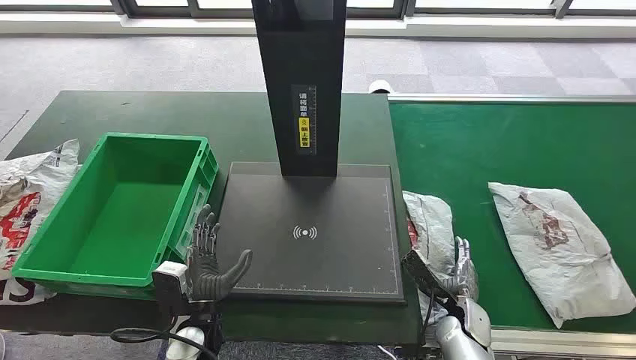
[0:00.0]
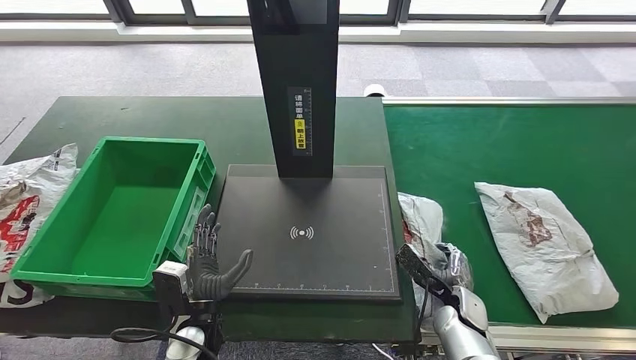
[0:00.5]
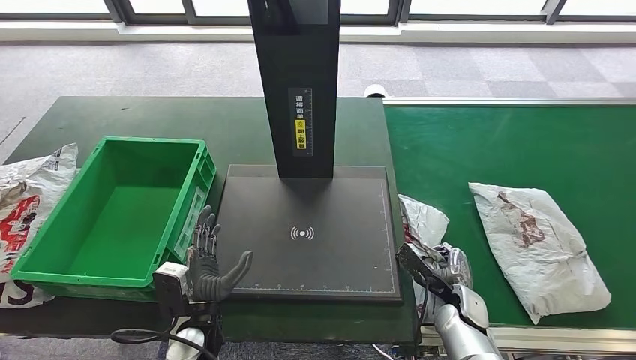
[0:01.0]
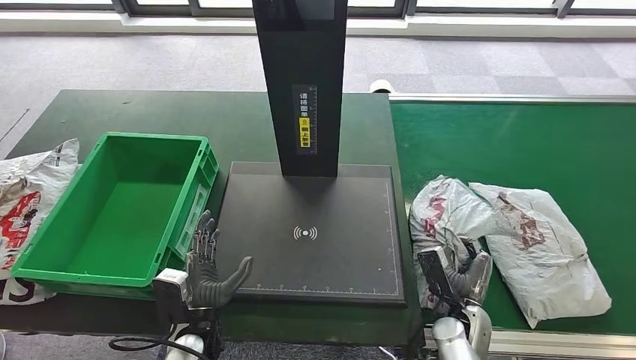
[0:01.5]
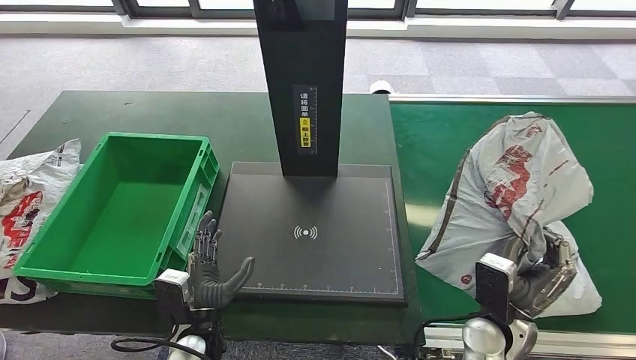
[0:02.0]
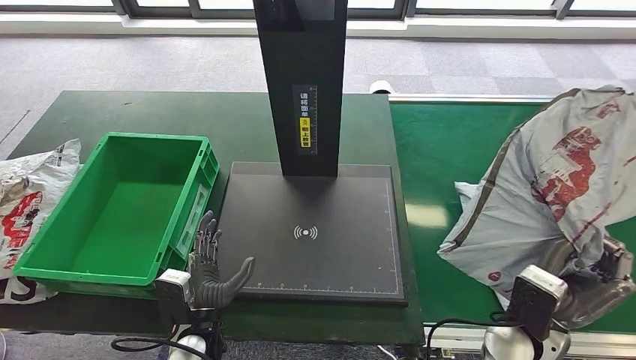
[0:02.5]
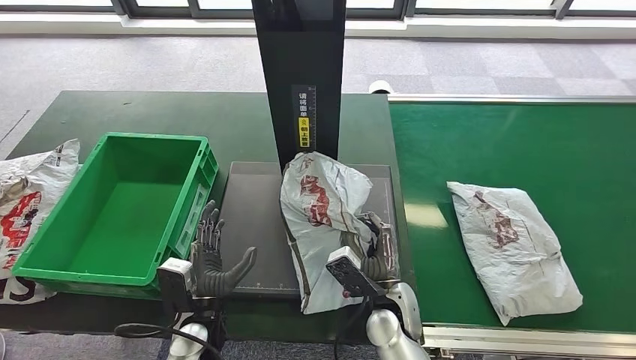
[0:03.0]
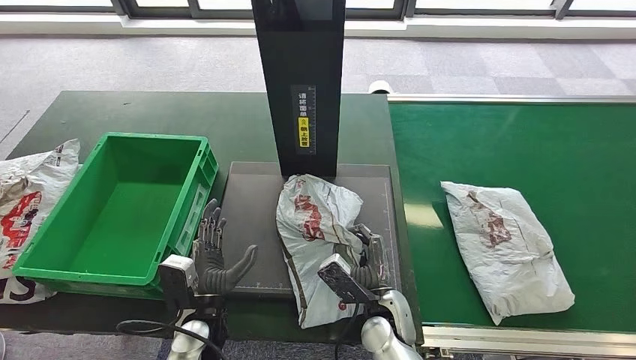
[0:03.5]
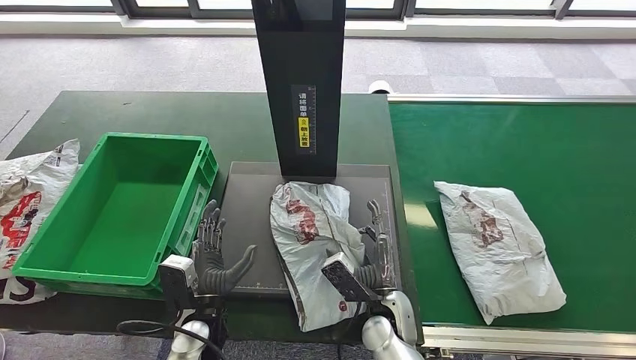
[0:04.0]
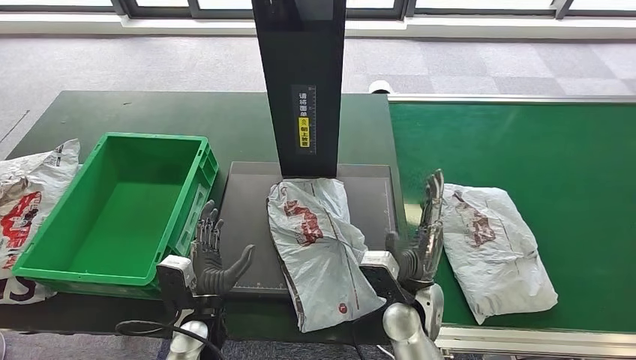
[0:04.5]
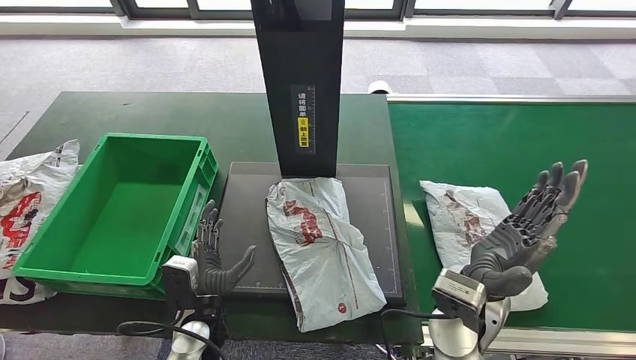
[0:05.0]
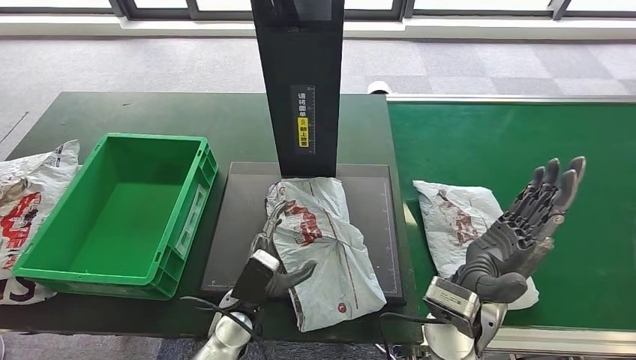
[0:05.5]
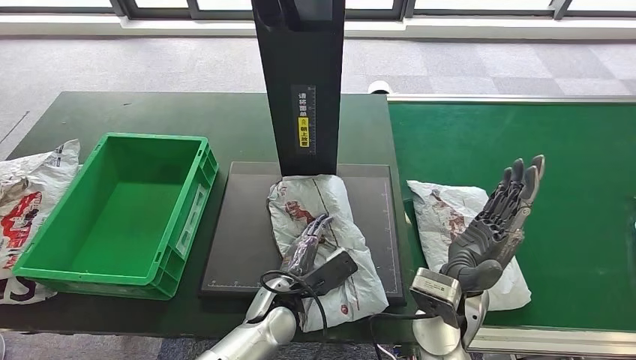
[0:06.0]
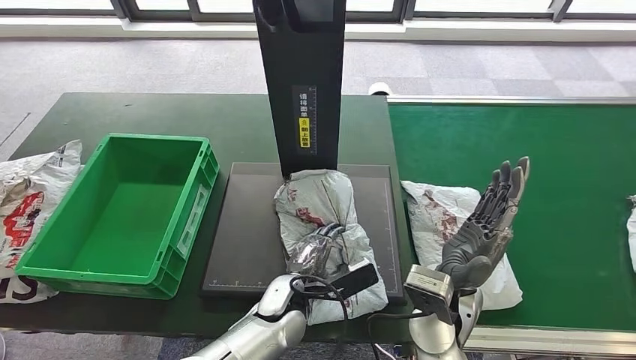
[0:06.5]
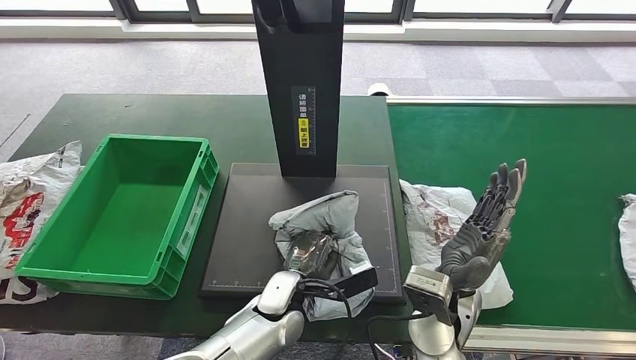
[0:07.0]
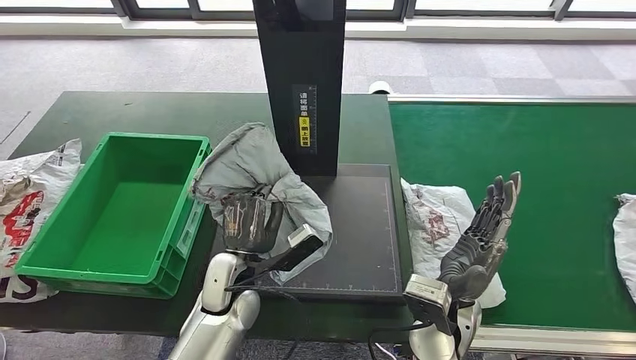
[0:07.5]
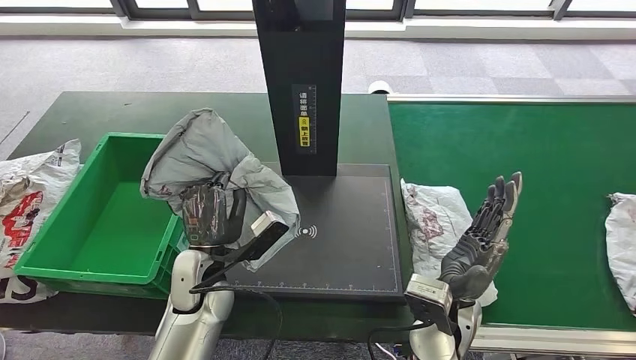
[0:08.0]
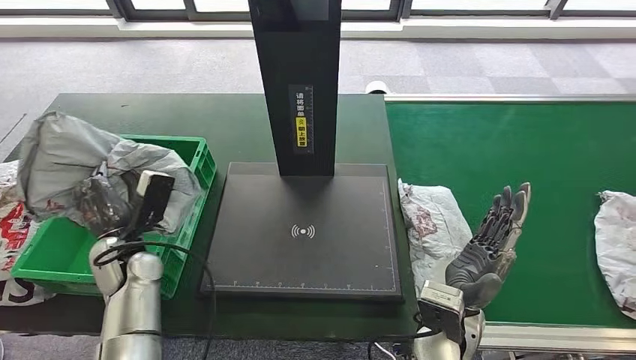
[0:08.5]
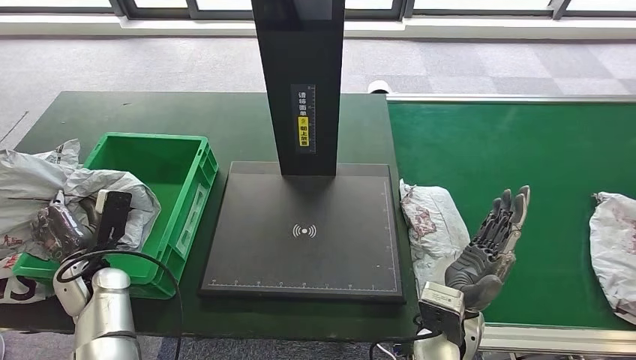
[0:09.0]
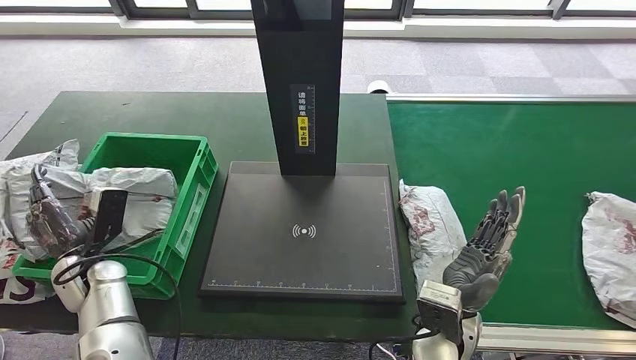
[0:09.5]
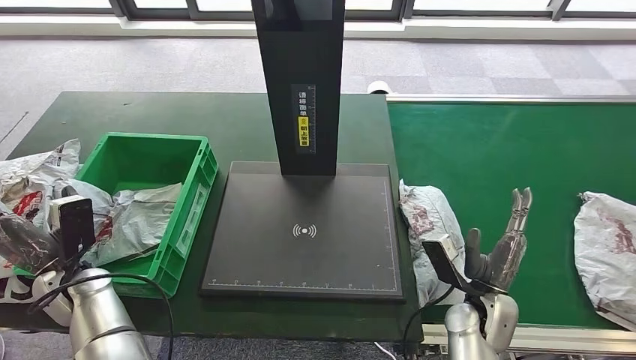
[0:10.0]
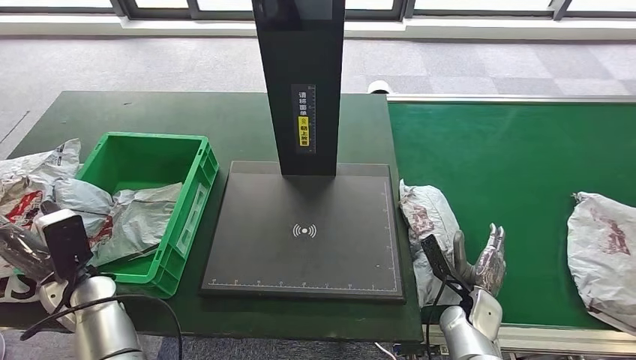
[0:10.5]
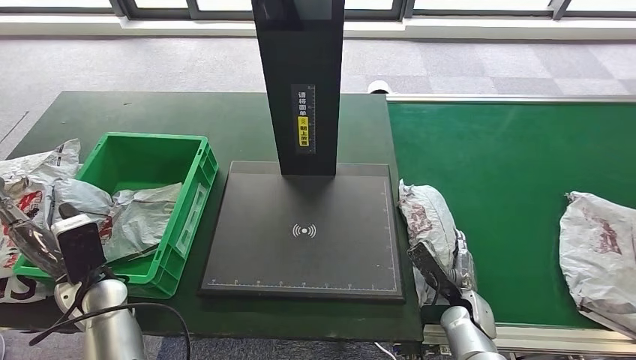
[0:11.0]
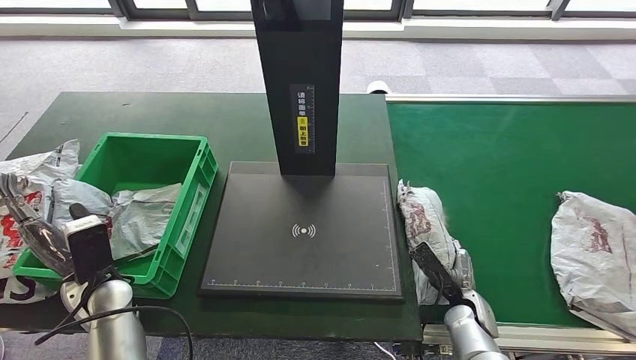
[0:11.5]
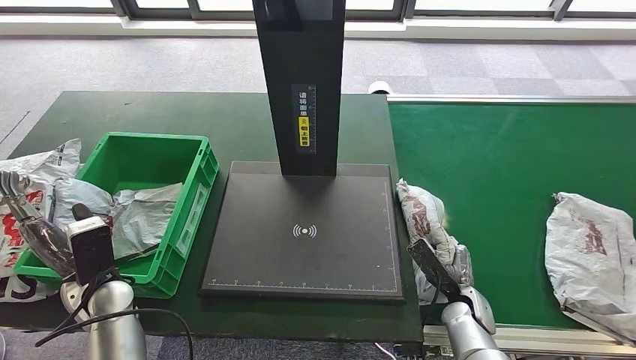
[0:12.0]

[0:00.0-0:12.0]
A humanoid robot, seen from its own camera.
Step, 0:00.0 to 0:01.5: Take the parcel off the conveyor belt.
Step, 0:02.5 to 0:05.0: Place the parcel onto the inbound machine.
Step, 0:05.5 to 0:08.5: Pick up the parcel from the inbound machine.
Step, 0:09.0 to 0:11.0: Put the parcel inside the courier box.
0:04.0 to 0:06.0: The left hand goes roughly 10 cm to the right; the right hand moves upward and to the right, approximately 15 cm.
0:10.0 to 0:12.0: The right hand moves downward, approximately 10 cm; the left hand shifts some 5 cm to the right.

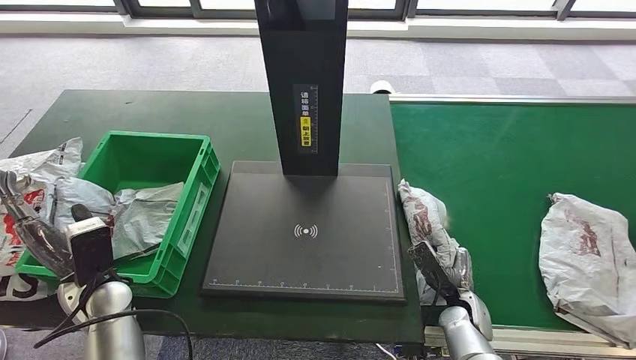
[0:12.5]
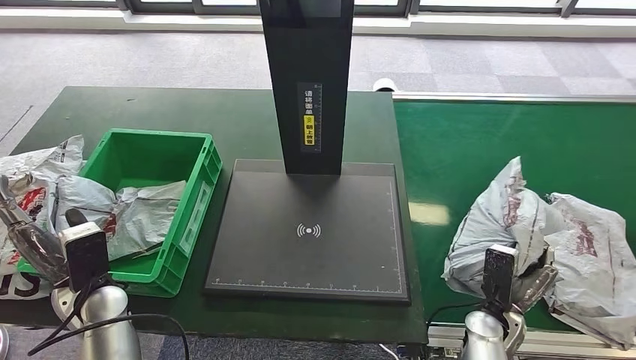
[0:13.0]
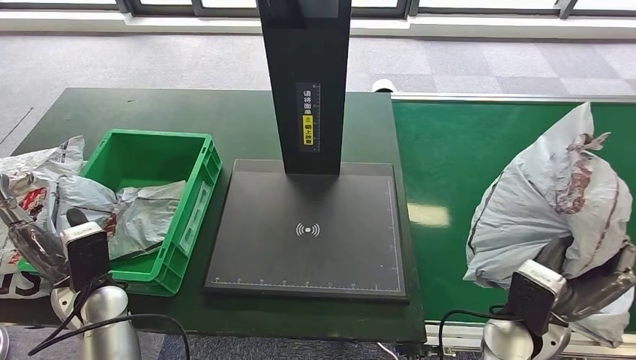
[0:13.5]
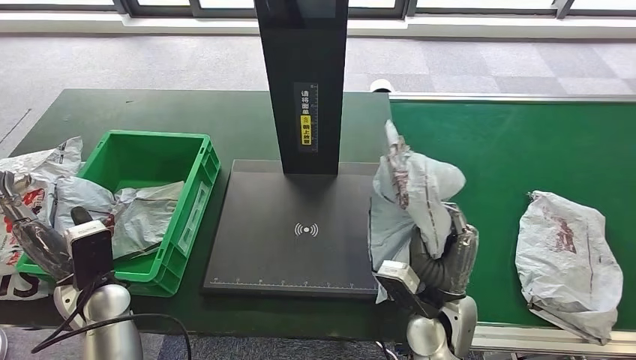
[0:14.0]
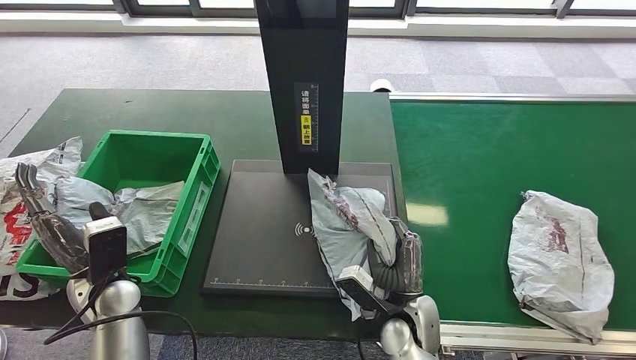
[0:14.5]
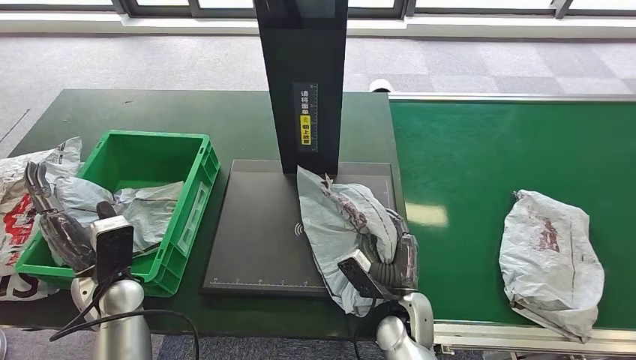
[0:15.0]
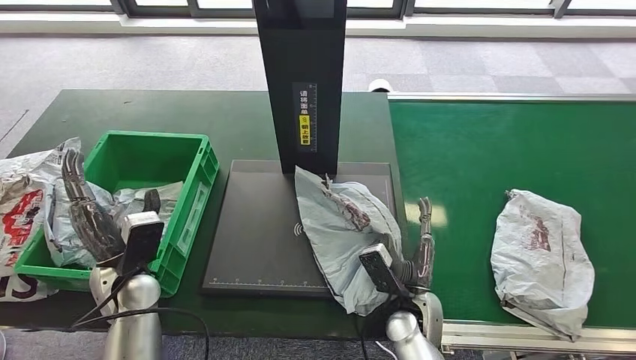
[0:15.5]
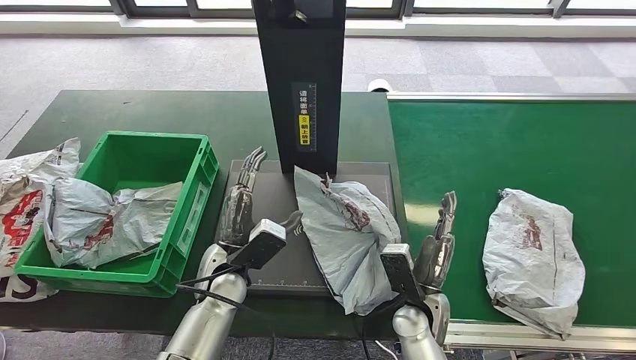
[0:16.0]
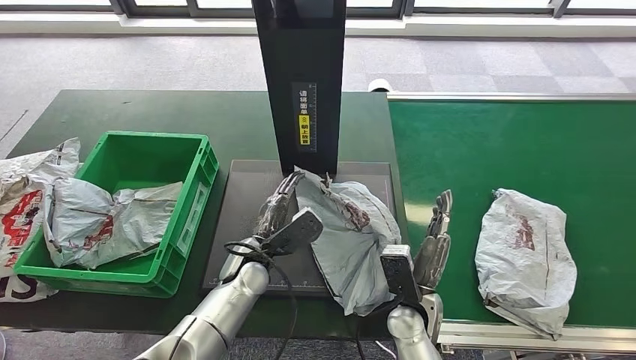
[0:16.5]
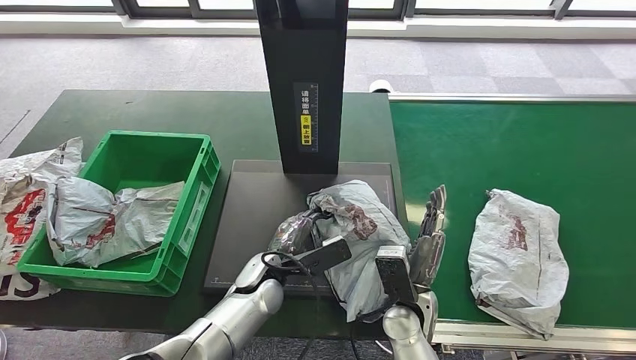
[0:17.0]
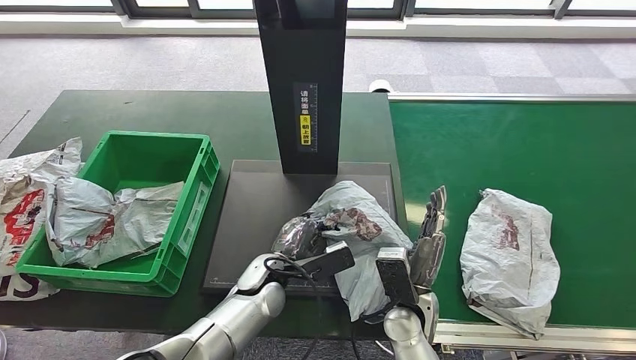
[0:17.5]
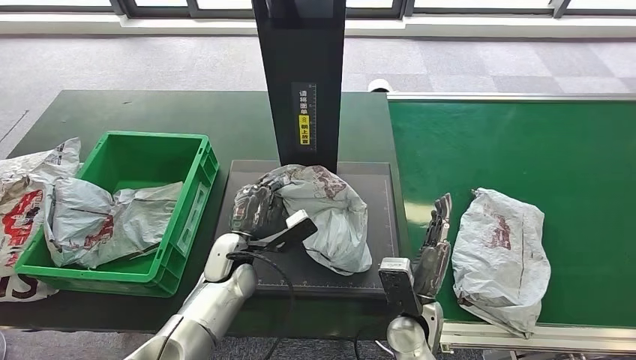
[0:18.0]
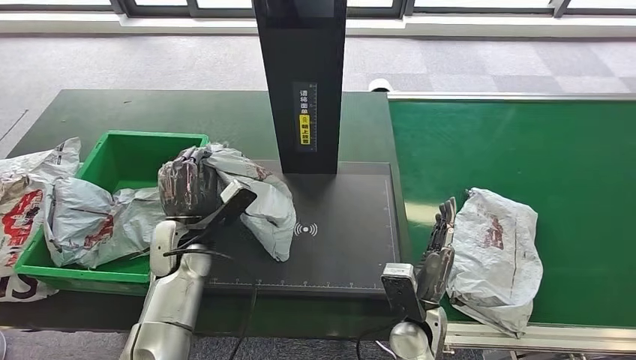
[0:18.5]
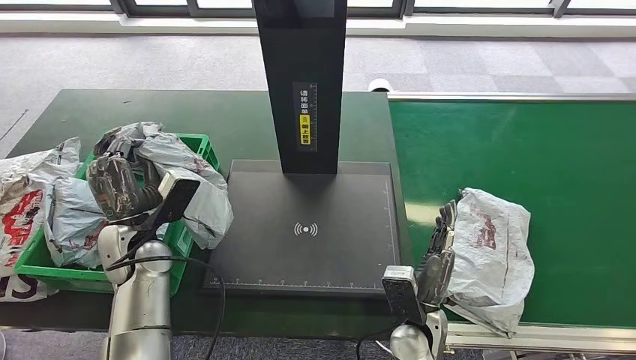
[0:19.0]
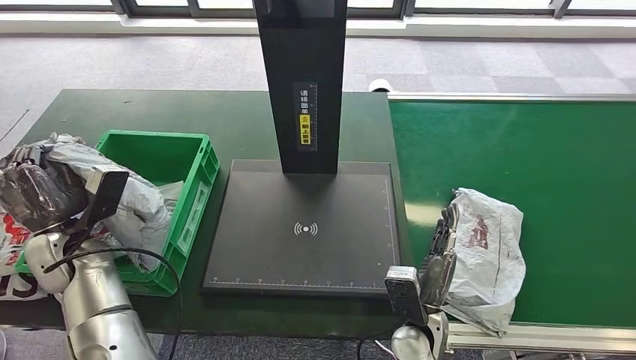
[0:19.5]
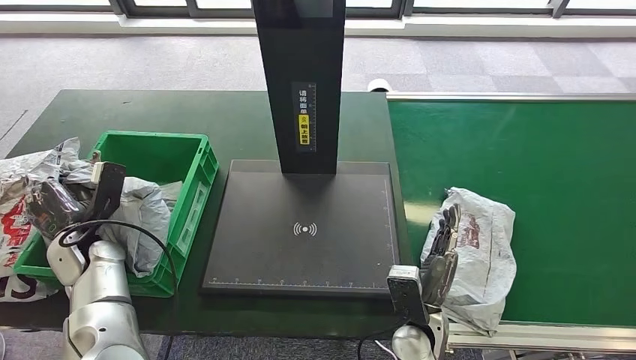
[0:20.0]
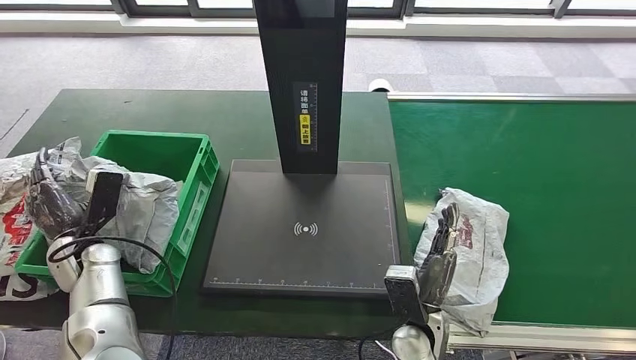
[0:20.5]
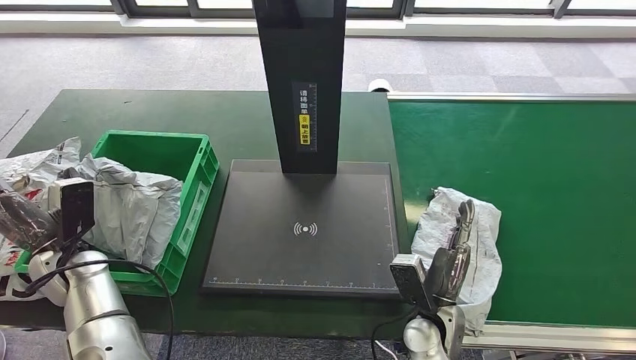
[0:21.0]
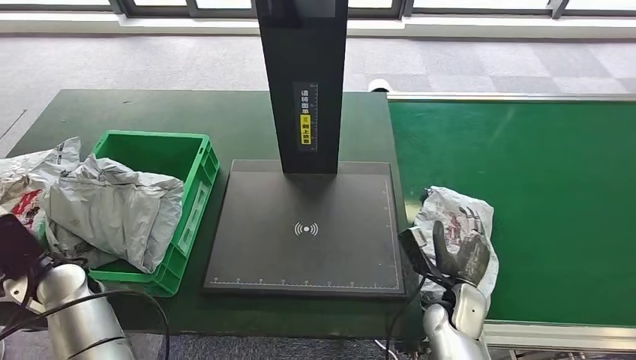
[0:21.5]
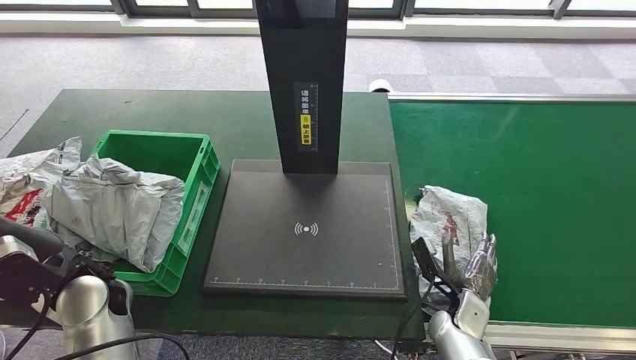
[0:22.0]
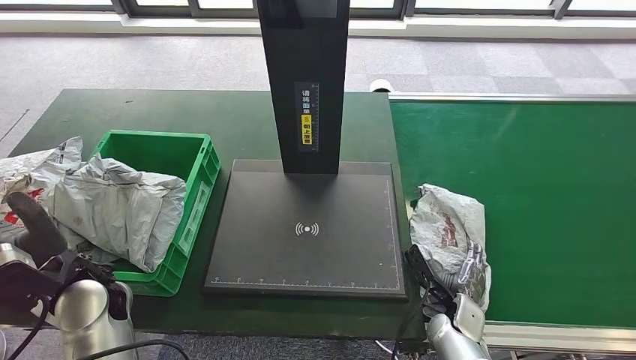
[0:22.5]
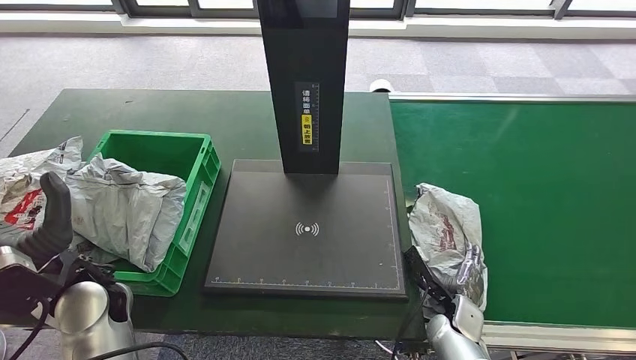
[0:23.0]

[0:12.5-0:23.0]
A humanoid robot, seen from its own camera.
Step, 0:12.5 to 0:14.0: Pick up the parcel from the conveyor belt.
Step, 0:14.5 to 0:16.5: Place the parcel onto the inbound machine.
Step, 0:17.5 to 0:19.0: Pick up the parcel from the inbound machine.
Step, 0:19.5 to 0:21.5: Place the parcel into the delivery box.
0:21.0 to 0:23.0: The left hand shifts roughly 10 cm upward, to the right and backward. The right hand travels downward and to the right by some 10 cm.
